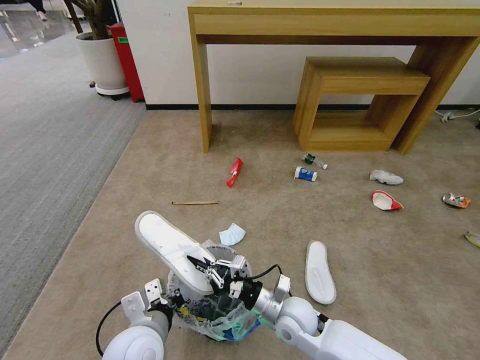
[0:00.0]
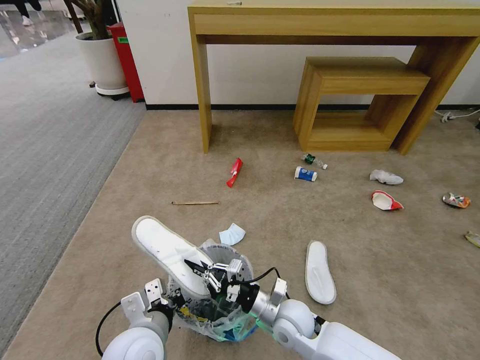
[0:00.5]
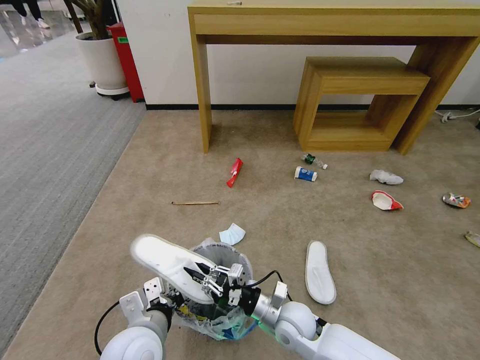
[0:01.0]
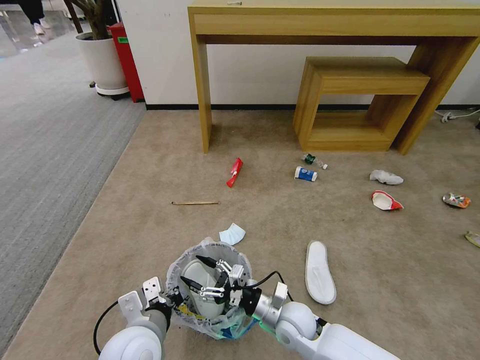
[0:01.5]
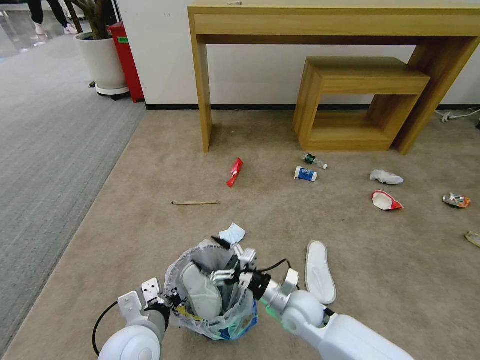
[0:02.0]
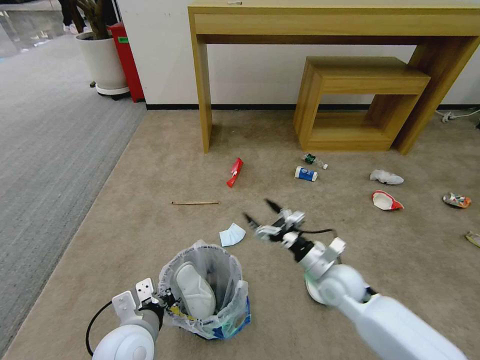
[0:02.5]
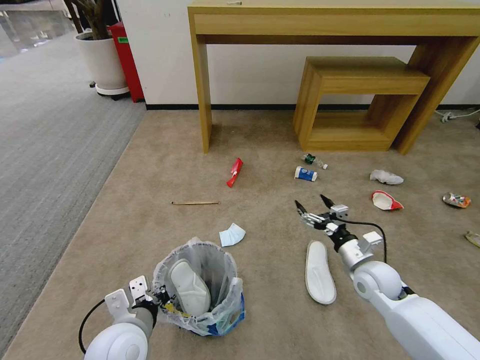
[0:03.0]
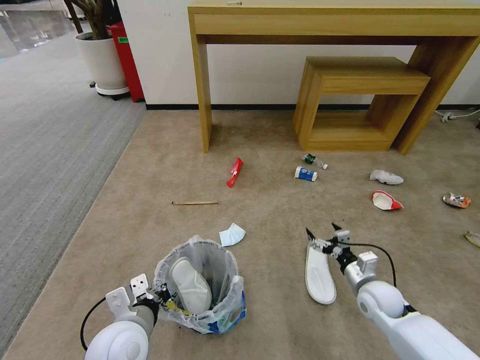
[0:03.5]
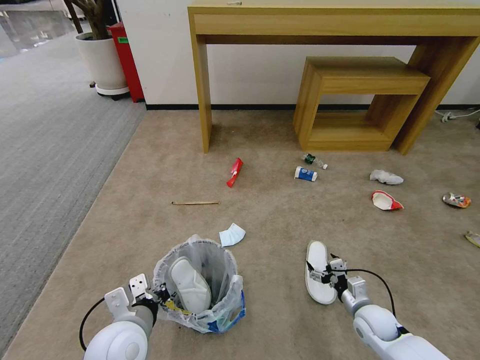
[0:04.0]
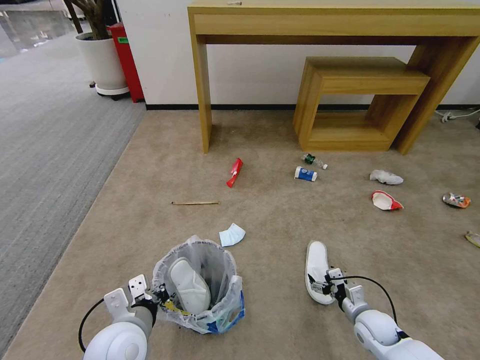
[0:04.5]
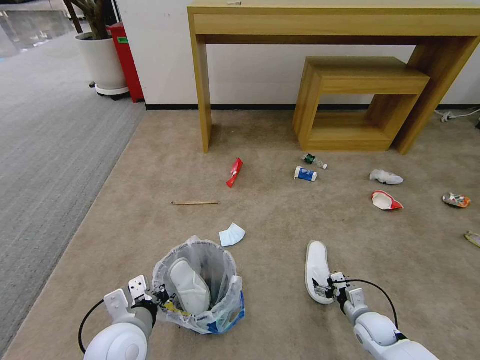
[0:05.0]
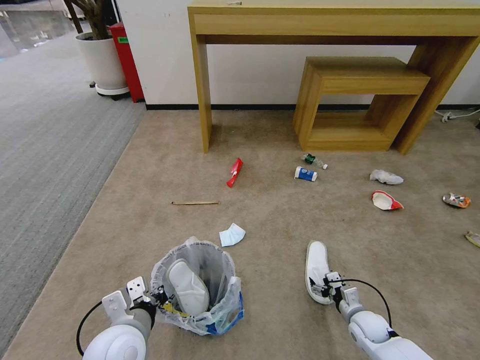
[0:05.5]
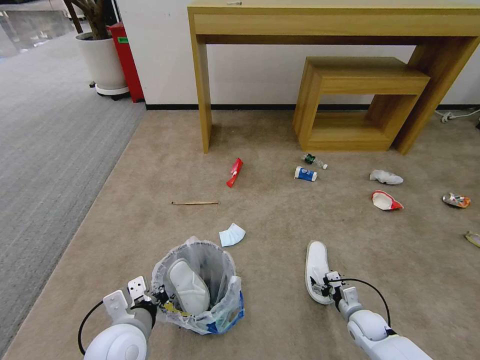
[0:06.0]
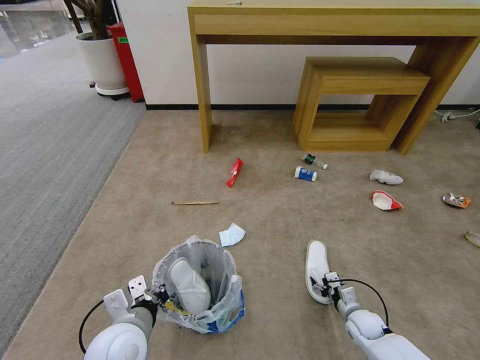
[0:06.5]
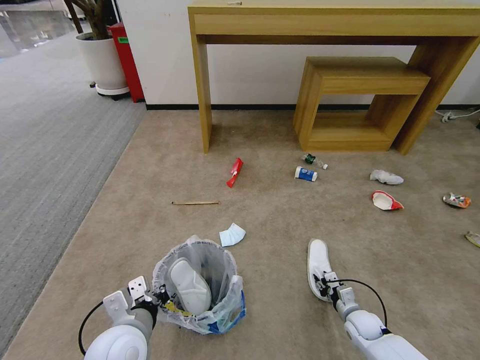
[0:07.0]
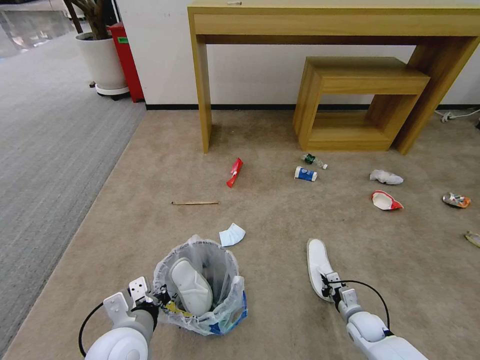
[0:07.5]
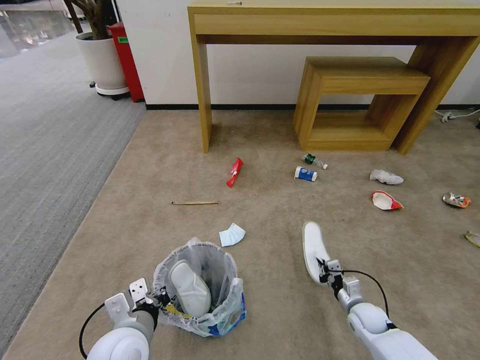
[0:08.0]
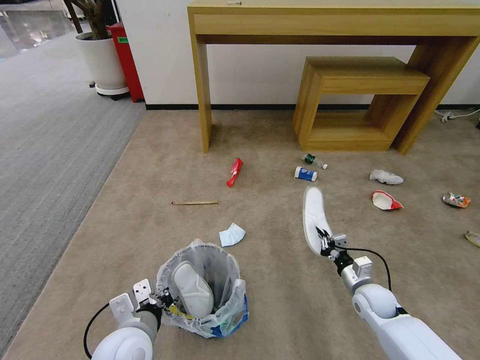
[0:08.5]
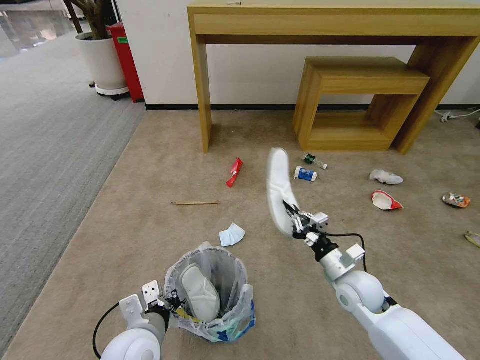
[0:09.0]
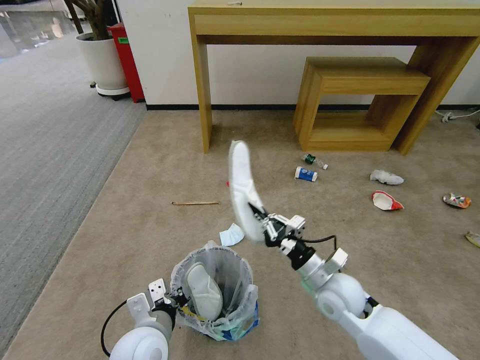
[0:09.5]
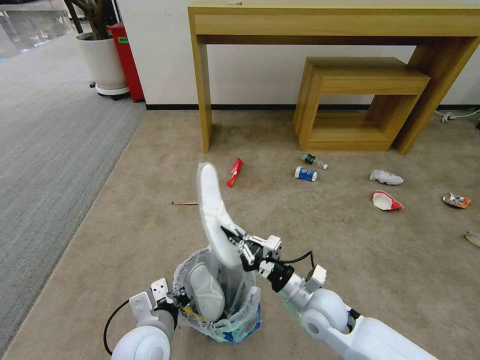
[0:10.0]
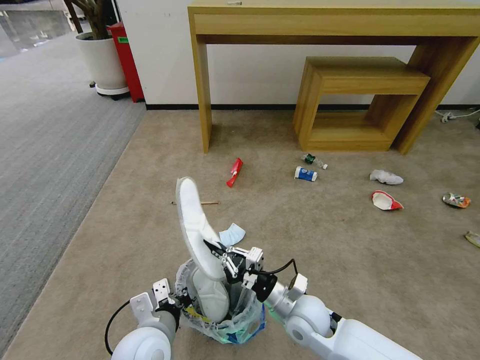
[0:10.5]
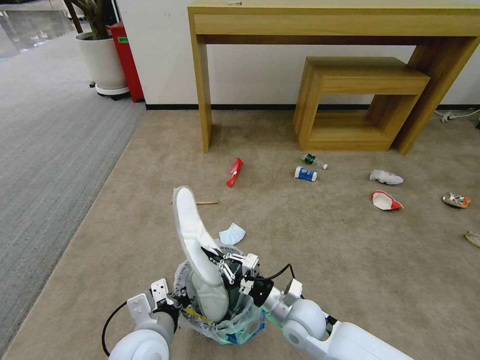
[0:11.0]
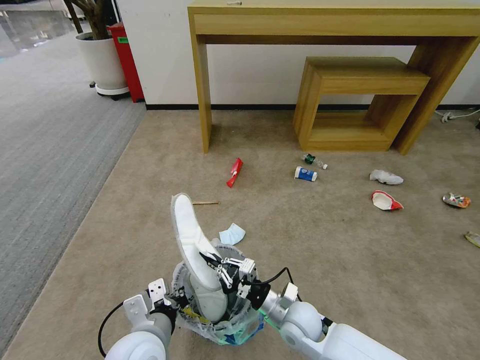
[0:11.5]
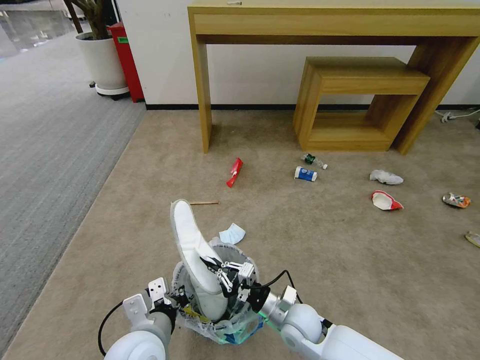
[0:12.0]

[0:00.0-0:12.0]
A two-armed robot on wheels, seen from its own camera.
Task of the whole recording: Pick up the trash bin and place the garbage on the floor into it.
0:00.0 to 0:02.0: The right gripper opens its fingers.
0:02.0 to 0:04.0: The right gripper travels to the right by some 20 cm.
0:04.0 to 0:06.0: The right gripper travels downward by roughly 5 cm.
0:06.0 to 0:08.0: The right gripper closes its fingers.
0:08.0 to 0:10.0: The right gripper travels to the left and upward by roughly 25 cm.
0:10.0 to 0:12.0: The right gripper goes about 5 cm downward.

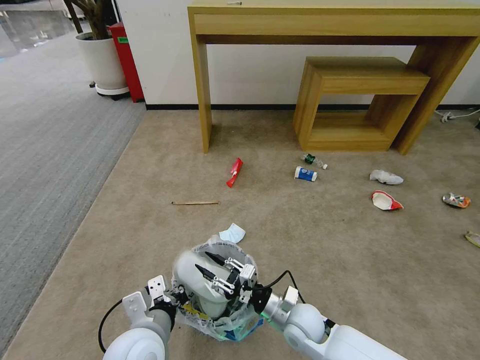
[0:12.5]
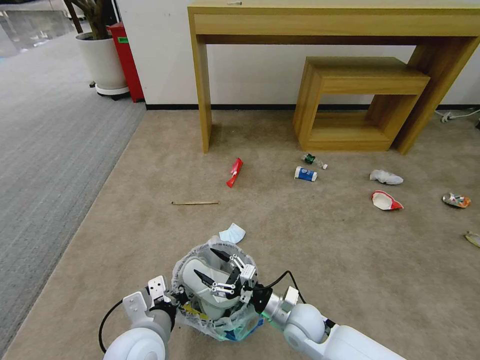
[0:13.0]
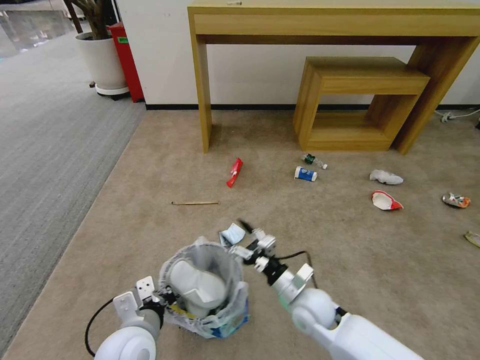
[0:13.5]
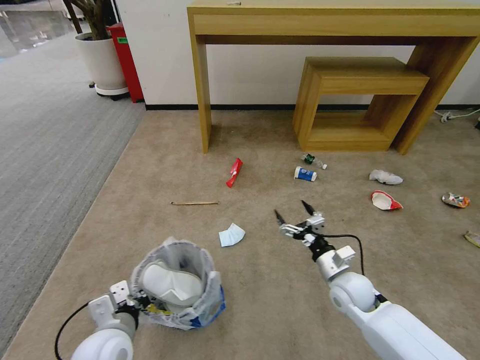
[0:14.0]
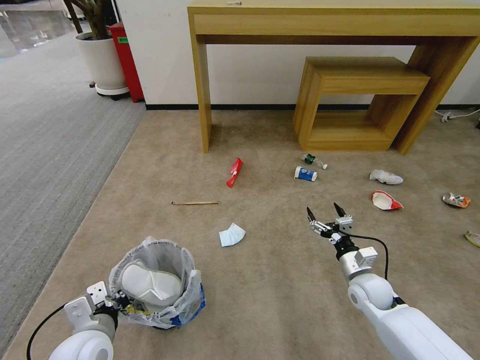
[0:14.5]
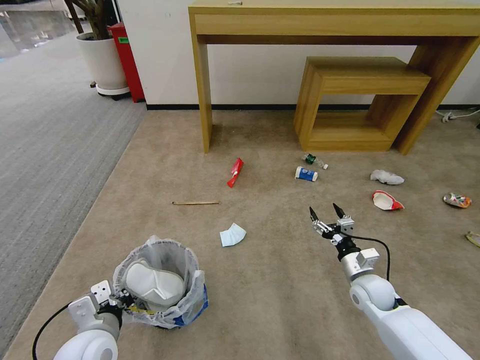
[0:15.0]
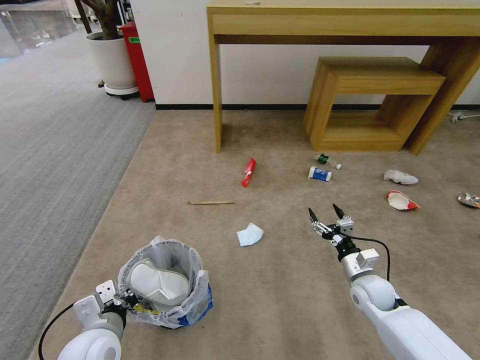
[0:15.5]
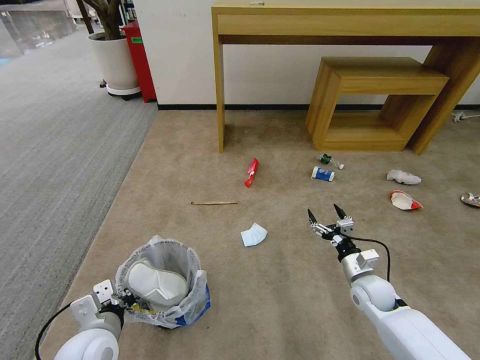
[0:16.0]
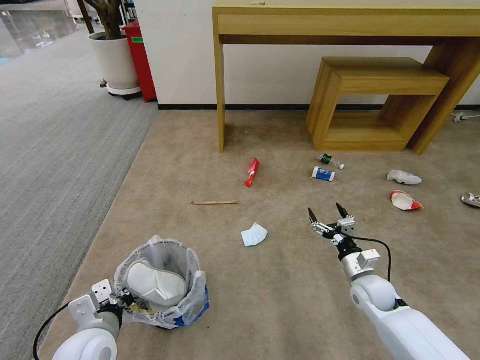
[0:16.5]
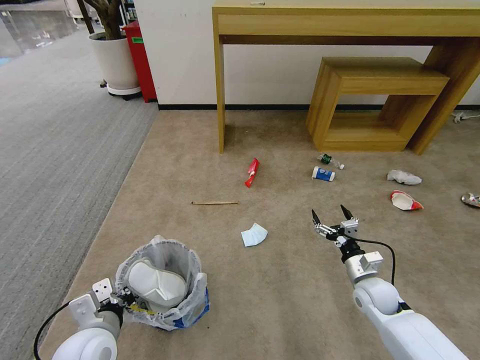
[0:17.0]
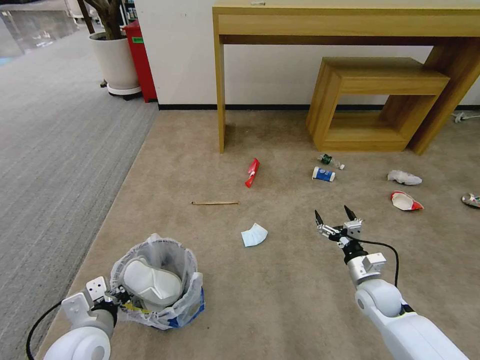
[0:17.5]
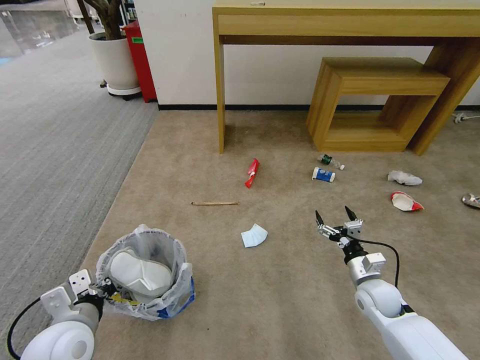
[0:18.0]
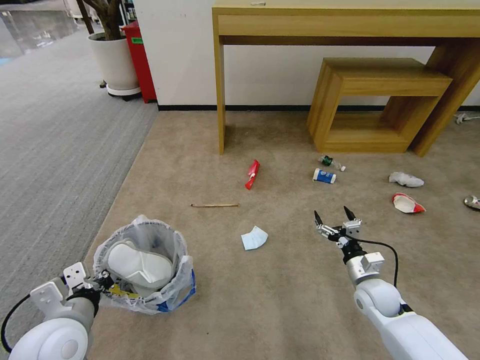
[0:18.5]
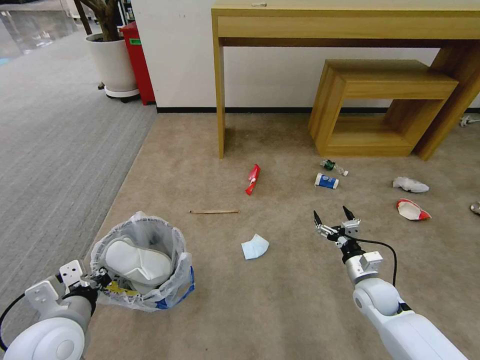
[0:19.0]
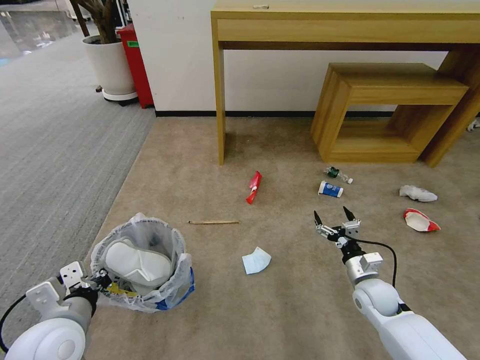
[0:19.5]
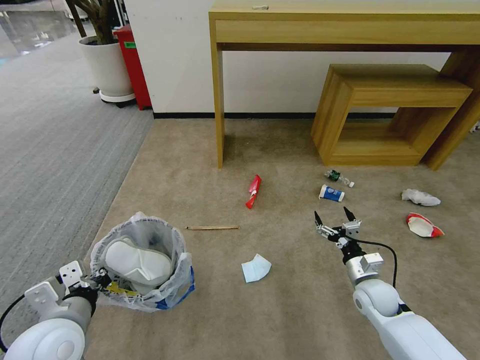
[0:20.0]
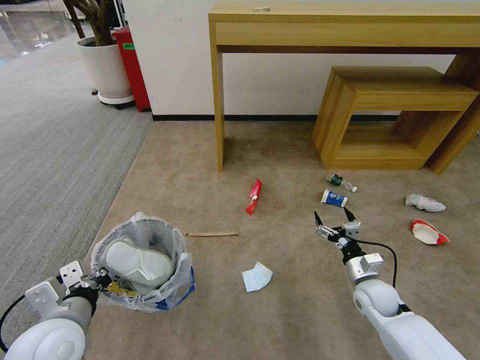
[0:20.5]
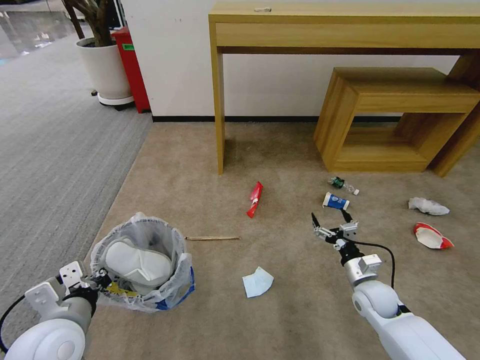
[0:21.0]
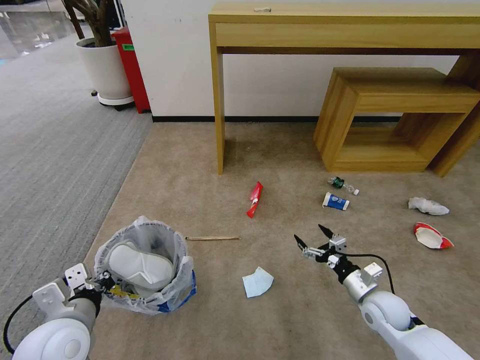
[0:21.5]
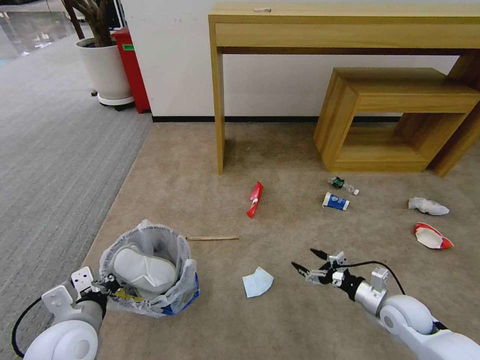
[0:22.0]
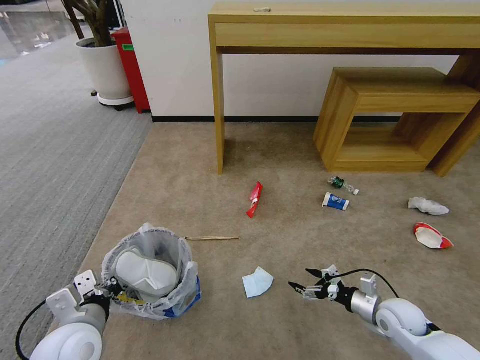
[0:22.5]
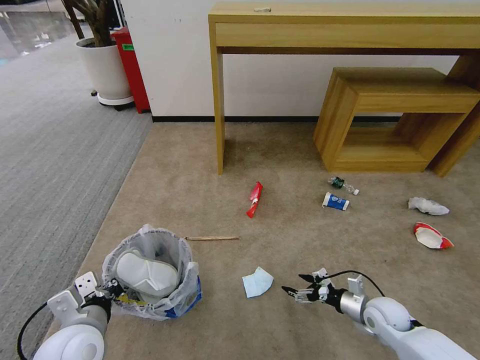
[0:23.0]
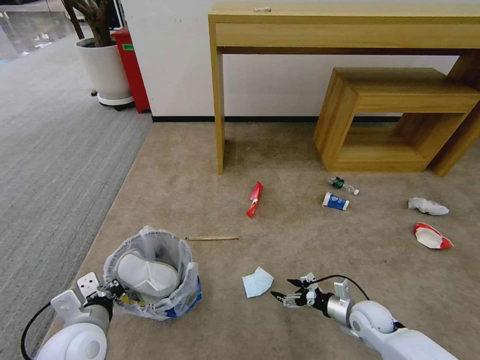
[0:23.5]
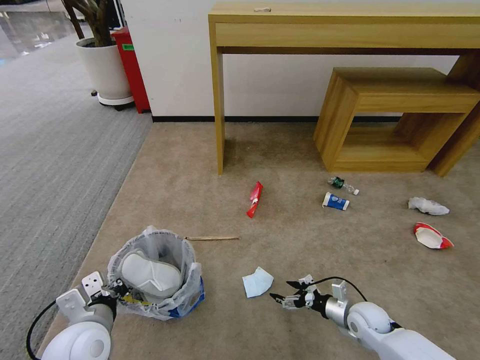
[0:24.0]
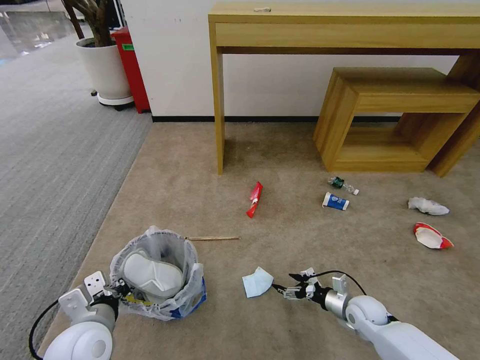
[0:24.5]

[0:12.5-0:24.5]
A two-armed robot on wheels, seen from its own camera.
Task of the whole recording: Pick up the trash bin and place the garbage on the floor into it.
0:12.5 to 0:14.5: The right gripper heads to the right, covering approximately 20 cm, and opens. The left gripper moves to the left, roughly 10 cm.
0:14.5 to 0:16.5: Both grippers stay put.
0:16.5 to 0:18.5: The left gripper heads upward, covering roughly 5 cm.
0:20.5 to 0:22.5: The right gripper changes place by approximately 5 cm.
0:22.5 to 0:24.5: The right gripper moves downward, roughly 5 cm.

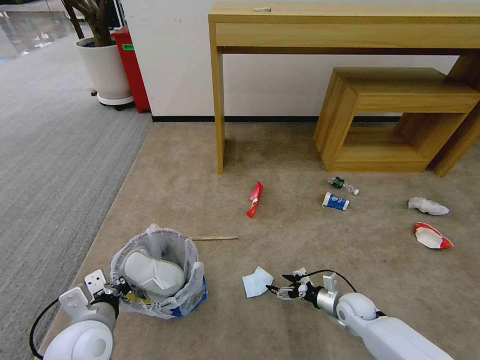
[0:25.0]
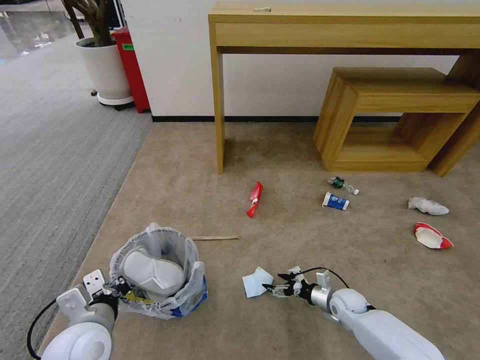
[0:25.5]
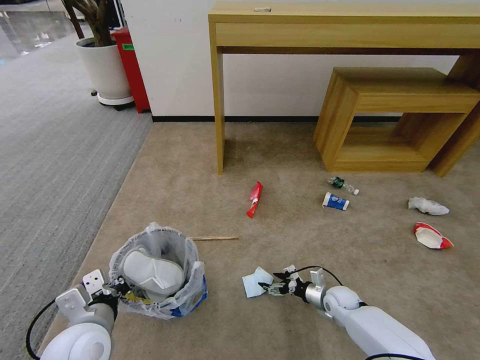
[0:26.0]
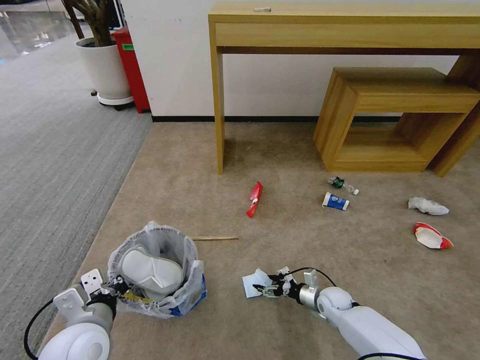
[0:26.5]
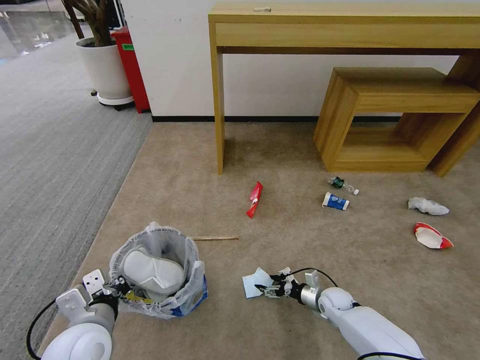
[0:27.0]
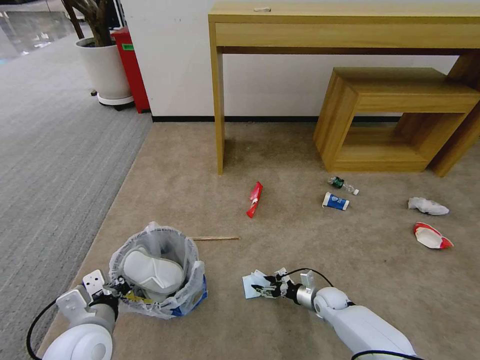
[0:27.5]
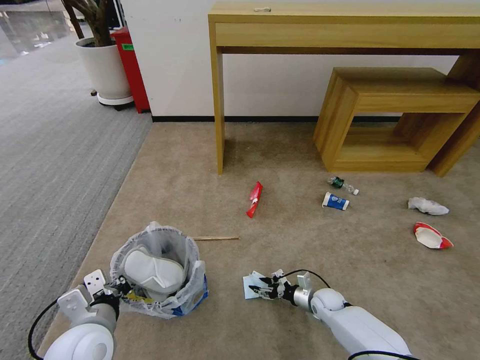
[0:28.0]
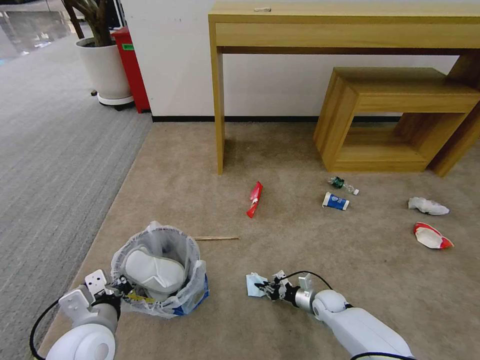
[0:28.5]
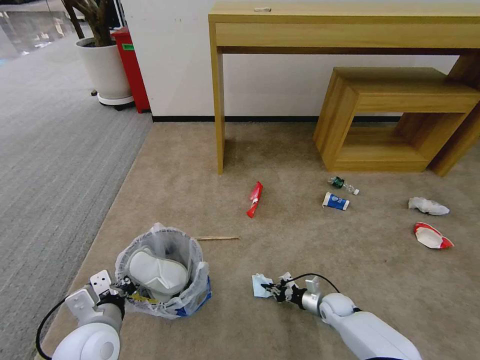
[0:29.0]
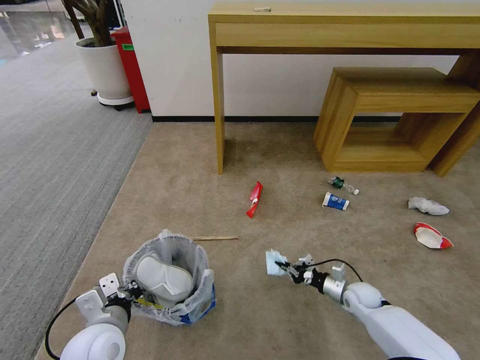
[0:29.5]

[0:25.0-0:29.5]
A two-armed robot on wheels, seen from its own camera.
Task of the whole recording: Pick up the trash bin and place the garbage on the floor into it.
0:25.0 to 0:27.0: The right gripper changes place by approximately 5 cm.
0:27.0 to 0:29.5: The right gripper goes some 10 cm to the right and upward, and closes.
